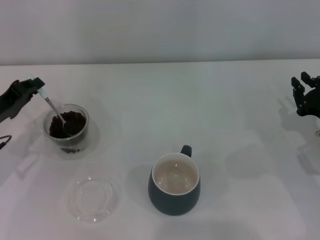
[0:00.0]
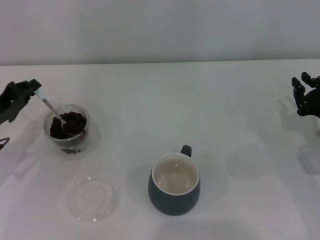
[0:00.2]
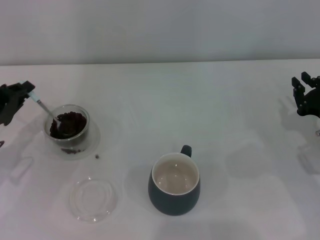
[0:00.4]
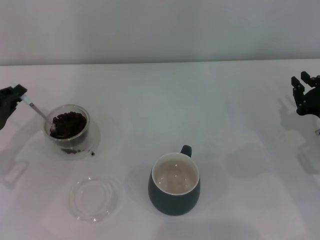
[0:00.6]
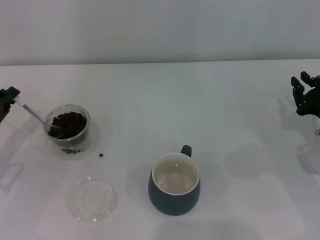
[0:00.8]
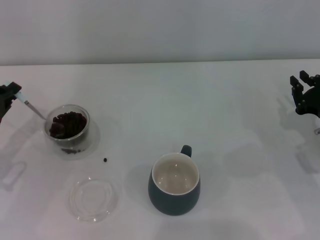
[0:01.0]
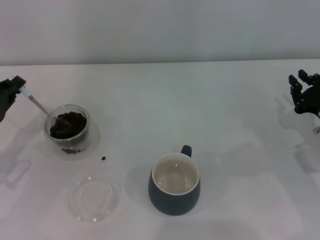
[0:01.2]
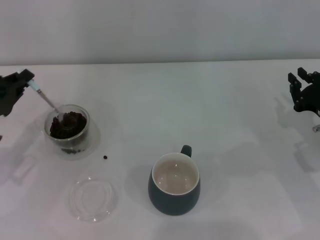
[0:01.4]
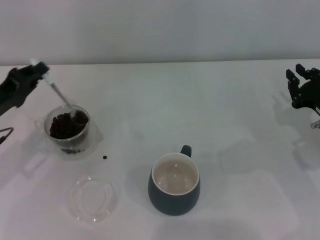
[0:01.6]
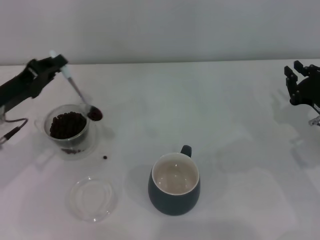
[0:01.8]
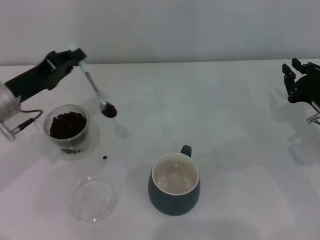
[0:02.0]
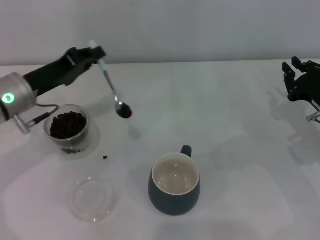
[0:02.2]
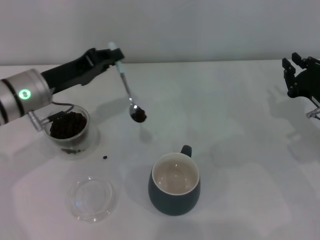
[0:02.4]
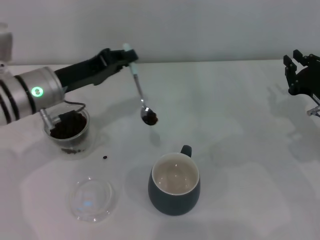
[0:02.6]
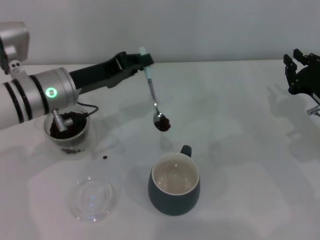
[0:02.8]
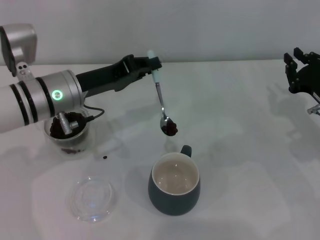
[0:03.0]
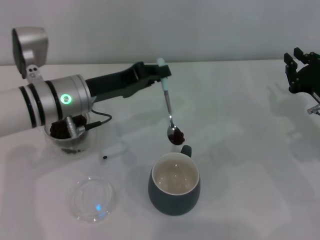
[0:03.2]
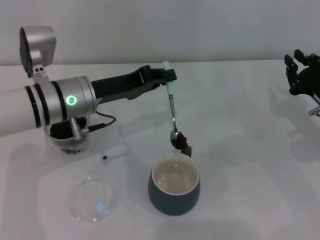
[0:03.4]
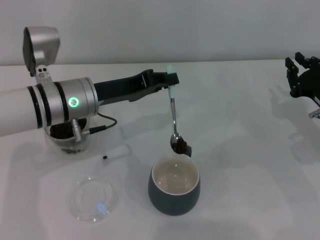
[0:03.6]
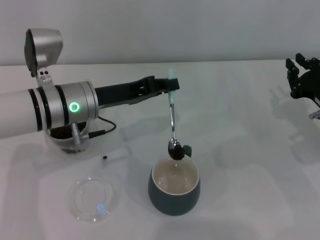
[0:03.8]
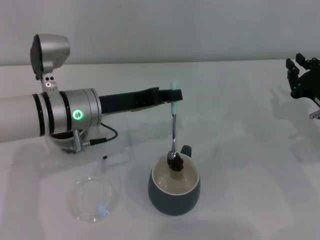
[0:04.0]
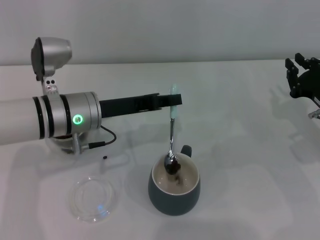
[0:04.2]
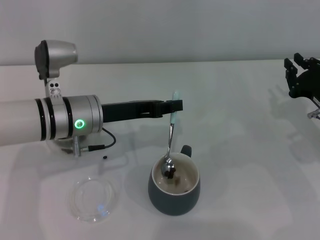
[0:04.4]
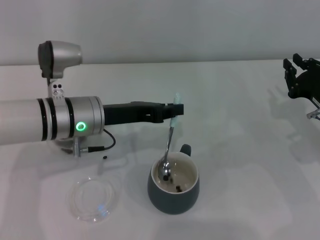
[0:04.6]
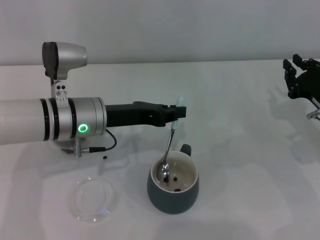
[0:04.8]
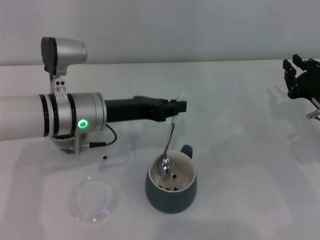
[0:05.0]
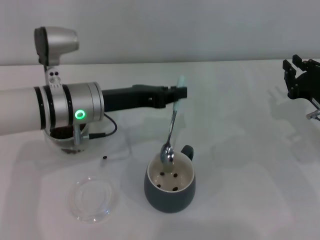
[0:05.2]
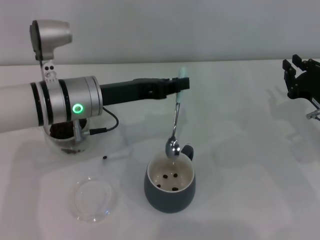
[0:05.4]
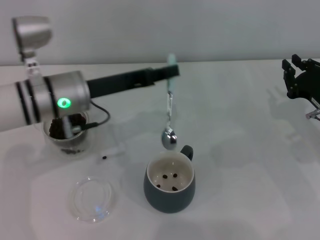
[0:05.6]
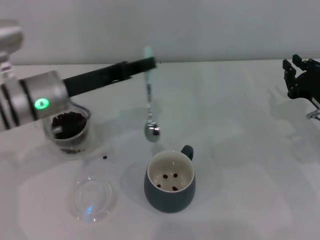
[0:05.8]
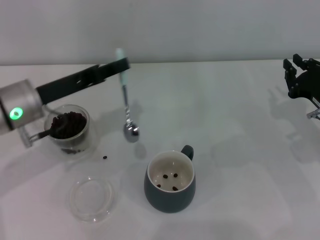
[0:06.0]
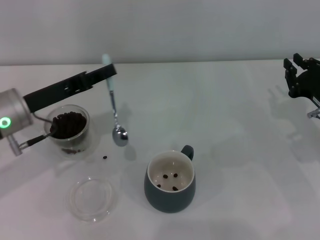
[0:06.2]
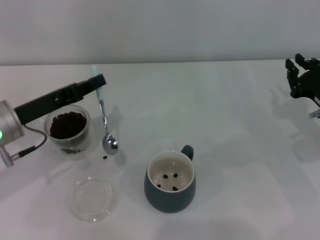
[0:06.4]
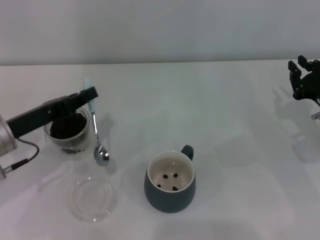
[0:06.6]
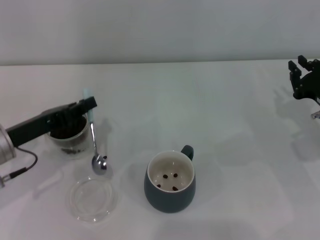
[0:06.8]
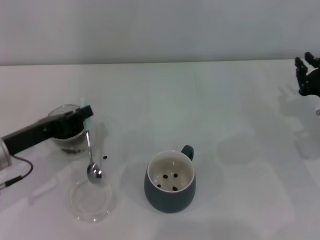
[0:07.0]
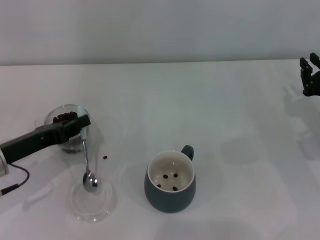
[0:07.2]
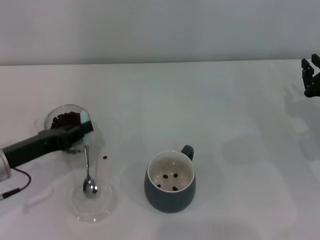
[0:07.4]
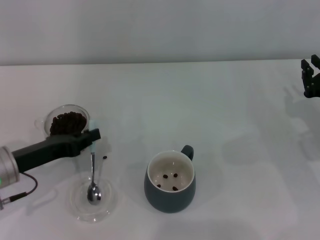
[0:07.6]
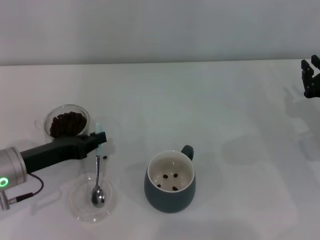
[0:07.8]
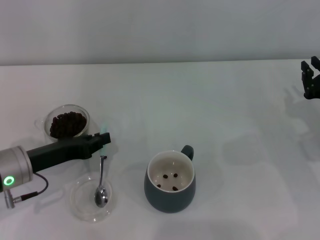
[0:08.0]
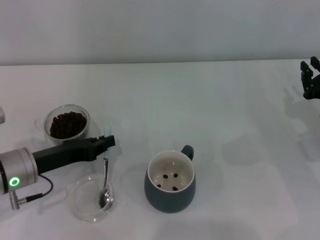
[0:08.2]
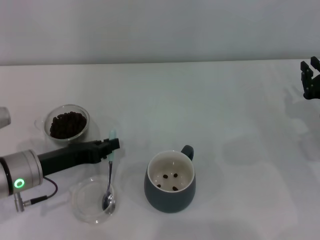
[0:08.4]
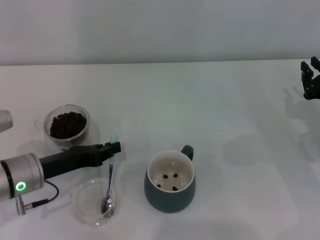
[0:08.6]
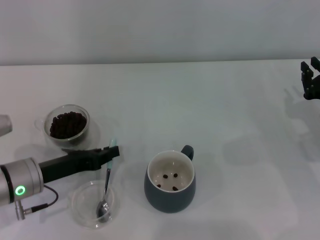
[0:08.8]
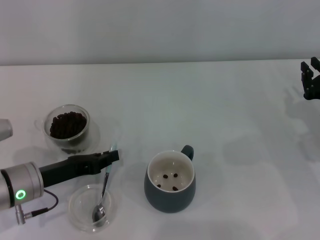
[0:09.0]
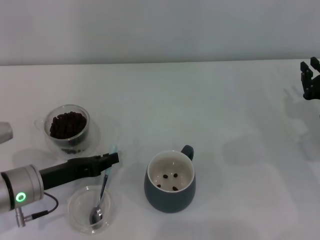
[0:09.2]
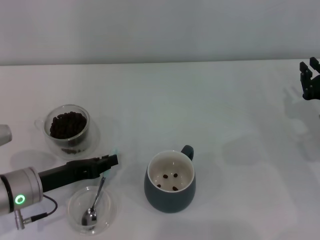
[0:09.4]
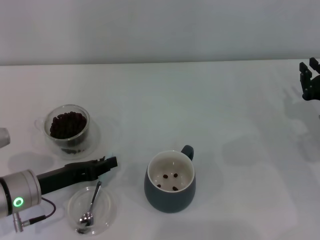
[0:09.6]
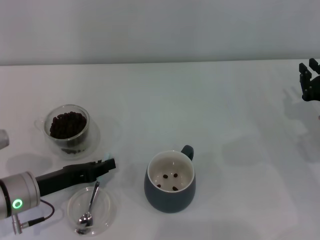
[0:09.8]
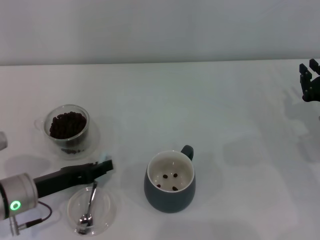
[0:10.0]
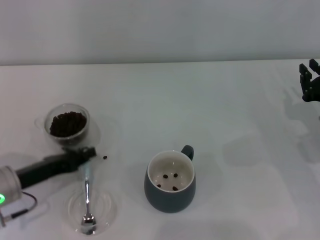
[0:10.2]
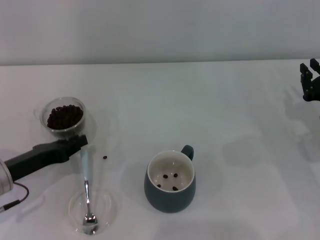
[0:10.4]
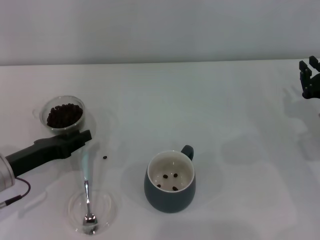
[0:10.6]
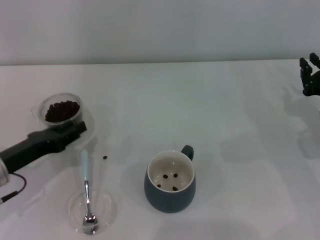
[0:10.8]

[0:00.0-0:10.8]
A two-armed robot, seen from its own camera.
Task of the whole recording: Use a blue spoon to take out the coffee beans from the glass and pour them into the gray cup.
0:00.0 to 0:01.6: There are only small adjustments of the grippers.
0:01.6 to 0:03.0: The left gripper is displaced to the right by about 15 cm.
0:04.6 to 0:06.2: The left gripper shifts roughly 10 cm to the left.
0:06.2 to 0:07.8: The left gripper heads downward, covering some 5 cm.
0:07.8 to 0:10.8: The grippers make only small movements.

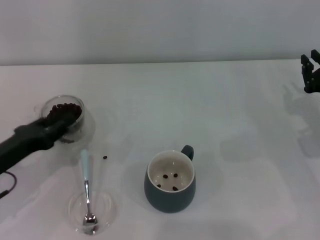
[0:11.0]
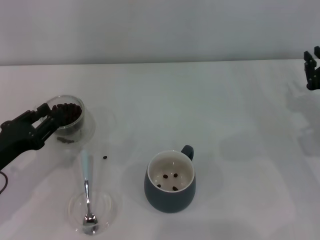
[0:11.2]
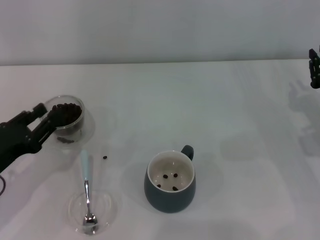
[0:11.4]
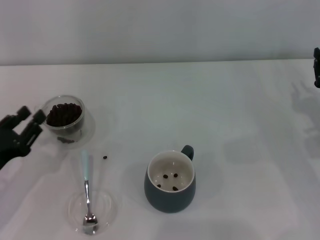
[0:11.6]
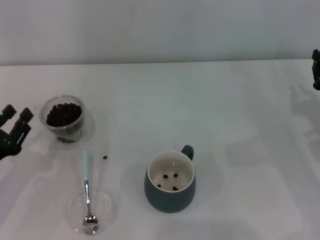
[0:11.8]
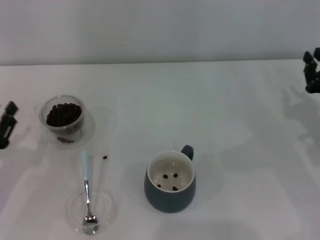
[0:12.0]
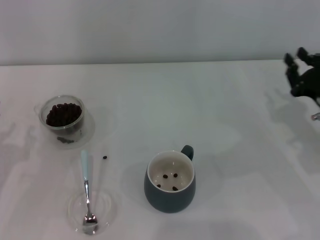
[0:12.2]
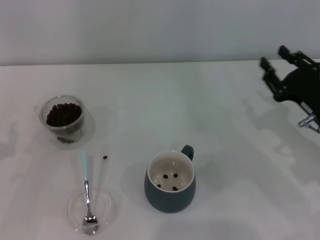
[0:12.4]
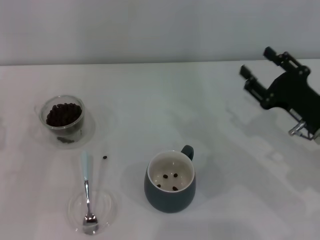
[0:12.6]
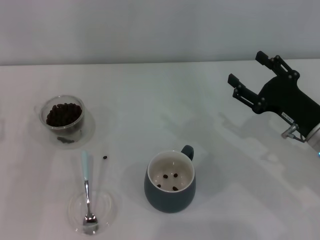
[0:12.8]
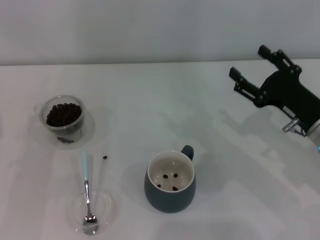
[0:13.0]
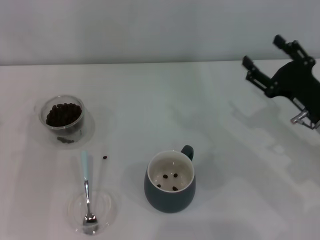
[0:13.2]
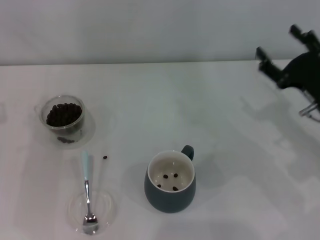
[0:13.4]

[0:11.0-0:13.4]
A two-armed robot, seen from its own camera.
Task of the whole recording: Use a blue spoon to take out the coffee beans from the glass and pour them into the gray cup.
0:11.0 to 0:12.2: The left gripper ends up about 5 cm from where it was.
0:12.2 to 0:13.4: The right gripper opens its fingers.

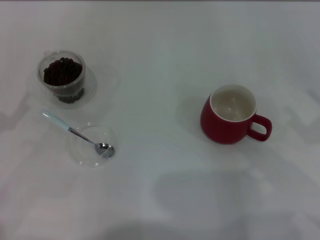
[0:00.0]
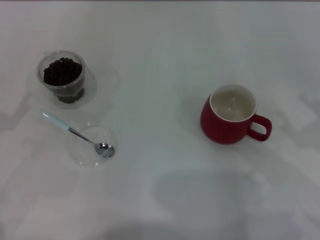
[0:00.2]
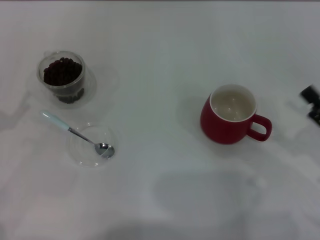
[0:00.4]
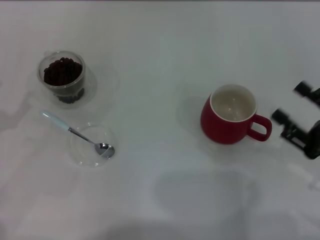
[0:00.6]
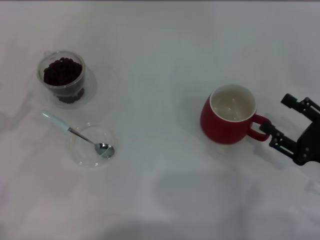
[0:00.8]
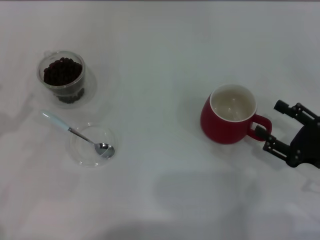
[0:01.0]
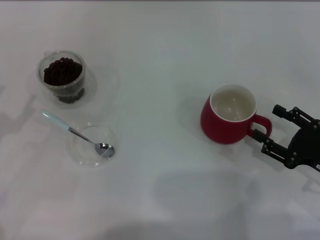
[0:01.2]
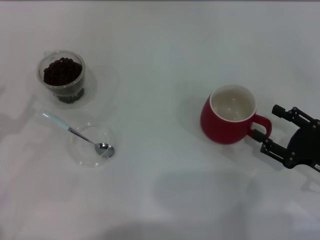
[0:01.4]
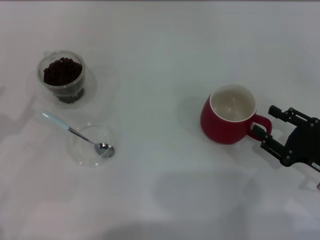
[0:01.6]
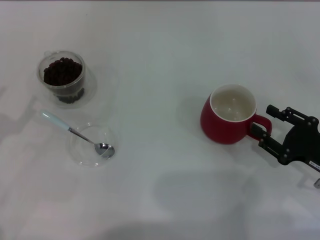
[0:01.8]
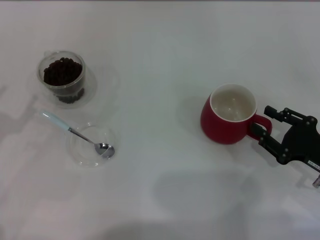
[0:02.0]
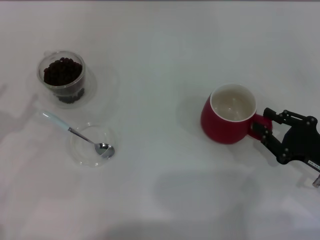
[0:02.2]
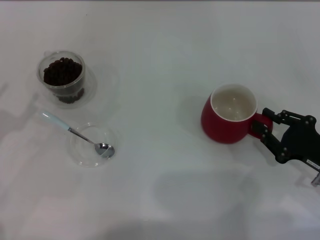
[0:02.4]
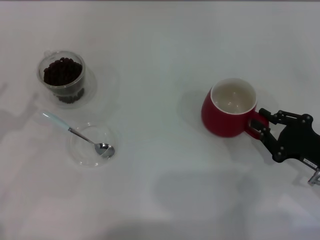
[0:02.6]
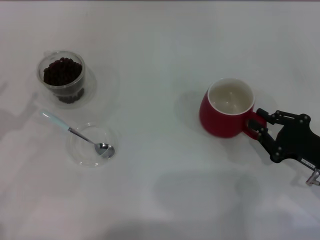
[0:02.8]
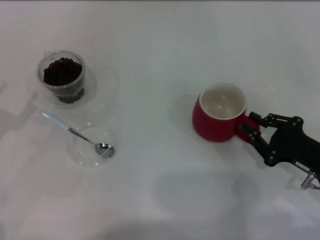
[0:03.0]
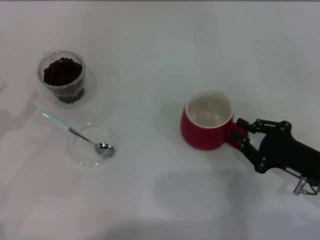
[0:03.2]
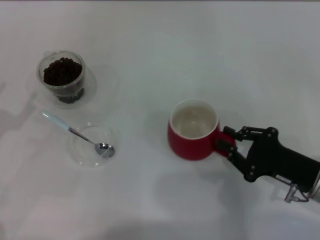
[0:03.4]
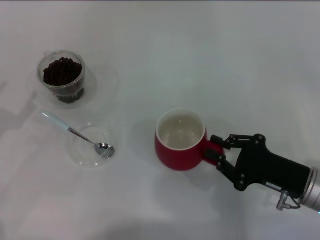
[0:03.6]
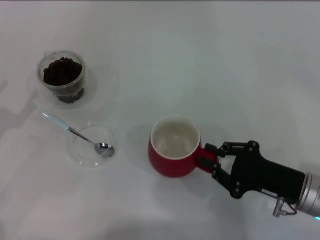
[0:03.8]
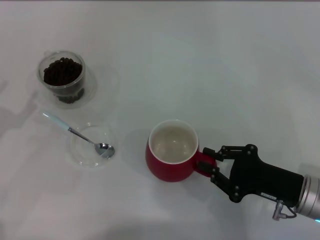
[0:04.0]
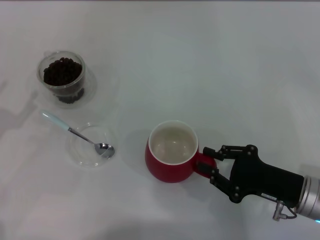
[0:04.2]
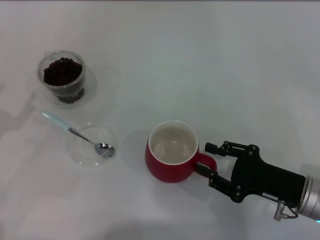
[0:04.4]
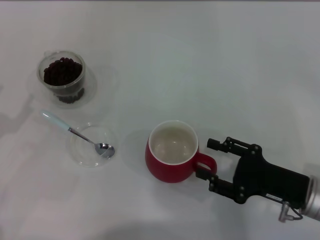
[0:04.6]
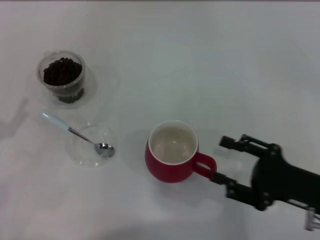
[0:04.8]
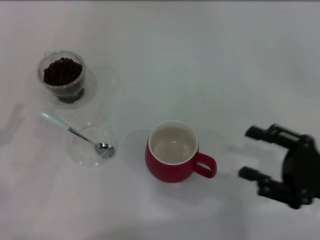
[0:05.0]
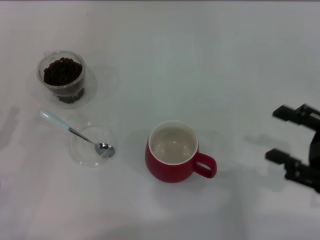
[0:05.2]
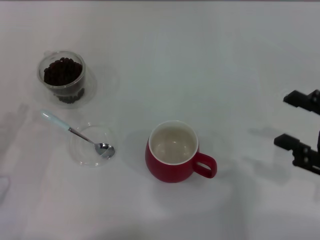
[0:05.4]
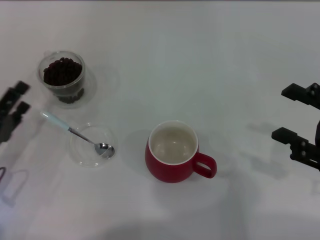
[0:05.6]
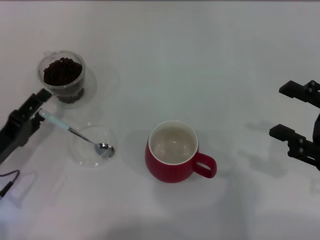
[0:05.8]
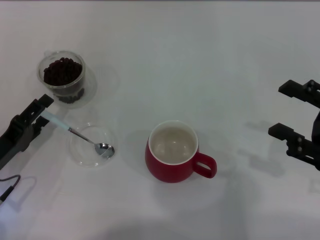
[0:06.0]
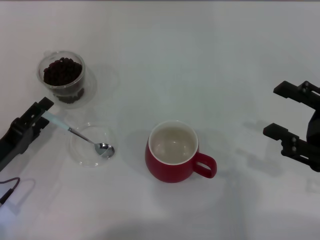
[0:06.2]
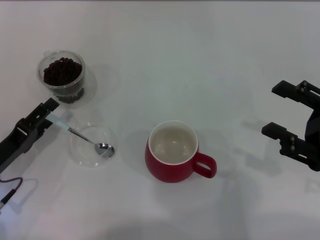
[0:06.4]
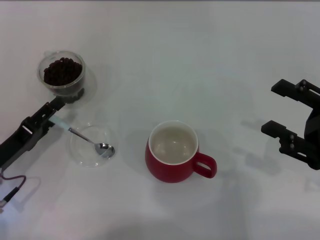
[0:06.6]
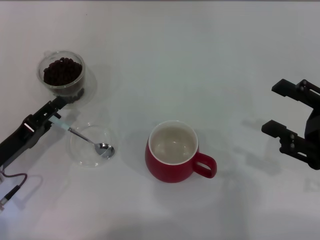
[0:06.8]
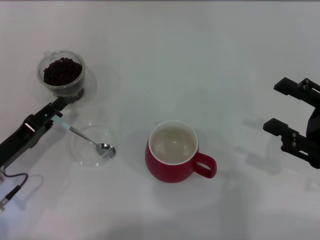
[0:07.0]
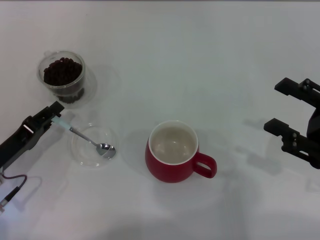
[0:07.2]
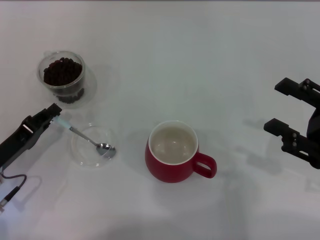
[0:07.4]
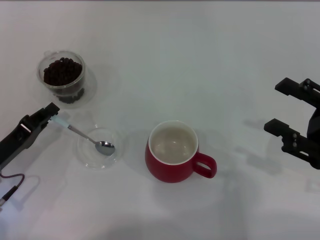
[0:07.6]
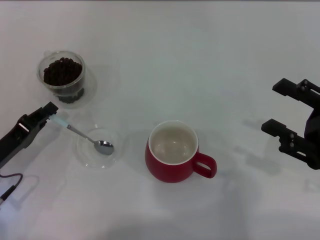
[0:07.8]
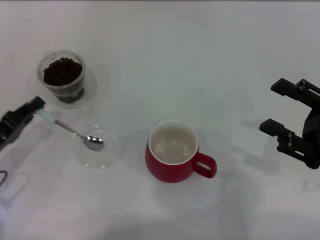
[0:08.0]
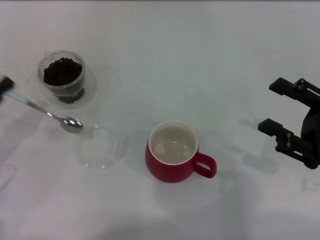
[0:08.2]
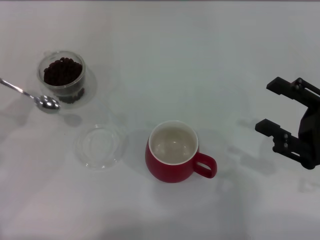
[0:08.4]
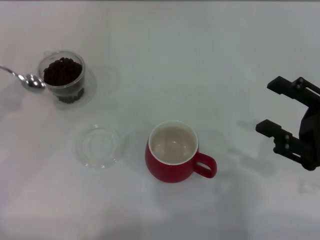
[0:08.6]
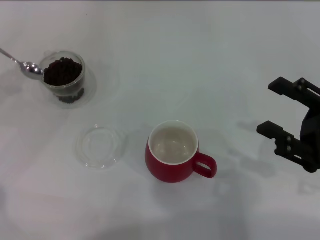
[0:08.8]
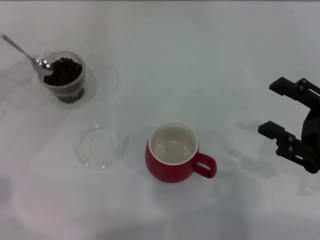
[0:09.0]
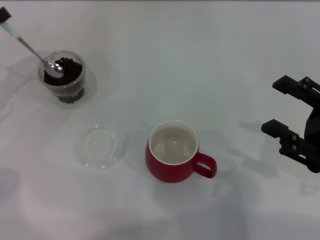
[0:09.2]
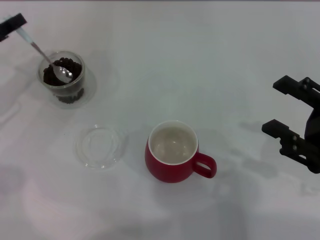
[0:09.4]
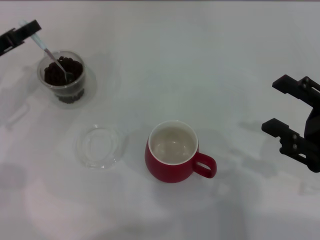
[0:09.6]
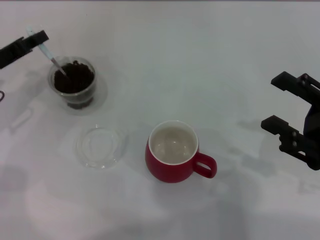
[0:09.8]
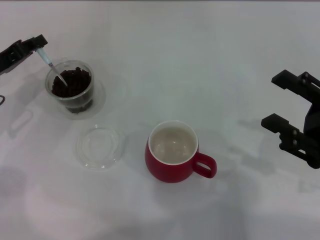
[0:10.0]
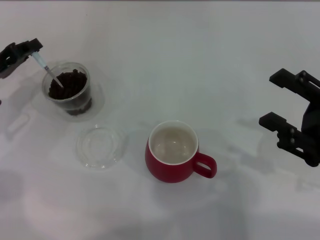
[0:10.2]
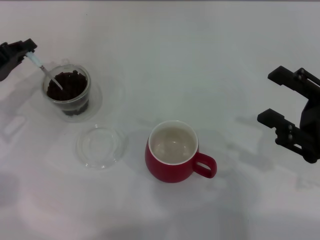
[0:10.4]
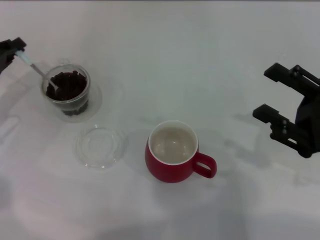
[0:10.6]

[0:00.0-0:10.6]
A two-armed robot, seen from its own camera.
Task of the whole recording: Use a blue spoon to take out the coffee beans from the glass and pour them into the red cup.
Step, 0:00.0 to 0:04.8: Move the cup to the center of view with the left gripper.
Step, 0:05.0 to 0:08.0: Pick up the spoon with the right gripper.
0:00.0 to 0:01.6: The right gripper heads downward, covering about 5 cm.
0:01.6 to 0:03.0: The right gripper closes its fingers.
0:03.0 to 0:04.6: The right gripper opens.
0:04.6 to 0:06.0: The right gripper is displaced upward and to the right by roughly 10 cm, and opens; the left gripper travels downward and to the right by roughly 10 cm.
0:06.0 to 0:07.6: The left gripper closes its fingers.
0:07.6 to 0:09.0: The left gripper shifts some 15 cm upward, forward and to the left.
0:09.0 to 0:10.6: The left gripper moves roughly 5 cm.
